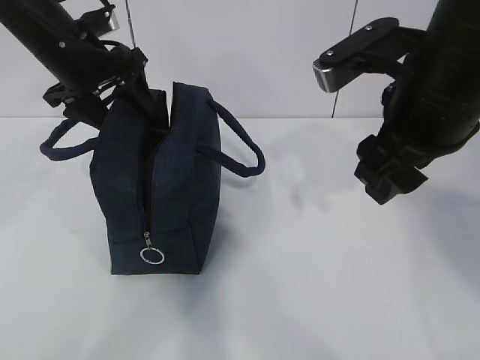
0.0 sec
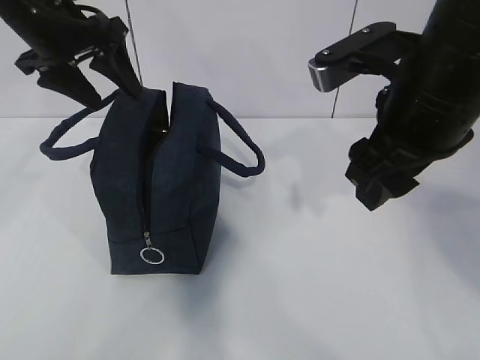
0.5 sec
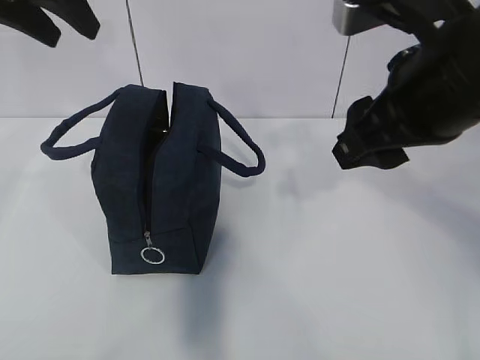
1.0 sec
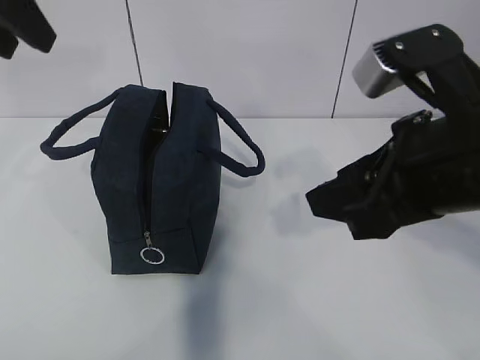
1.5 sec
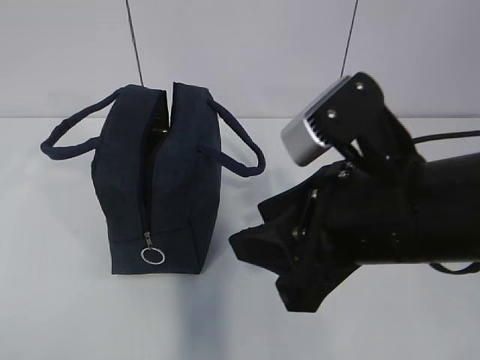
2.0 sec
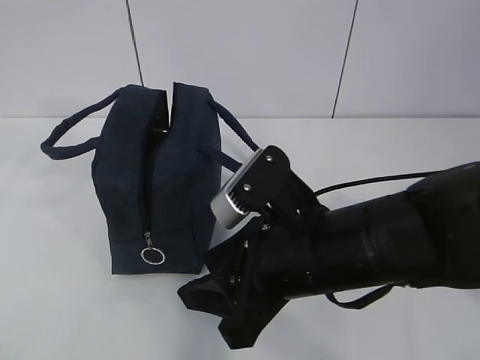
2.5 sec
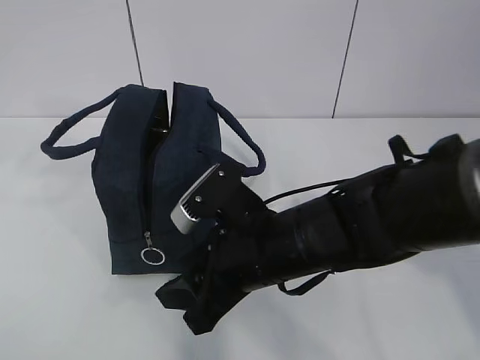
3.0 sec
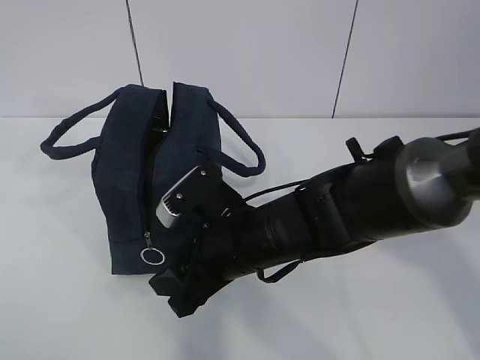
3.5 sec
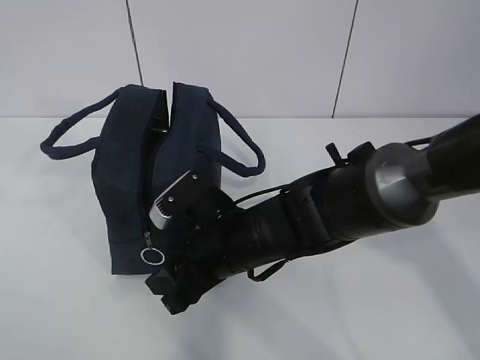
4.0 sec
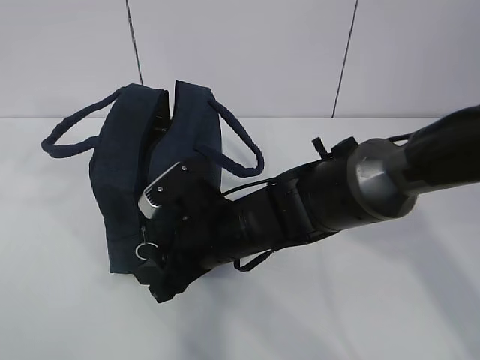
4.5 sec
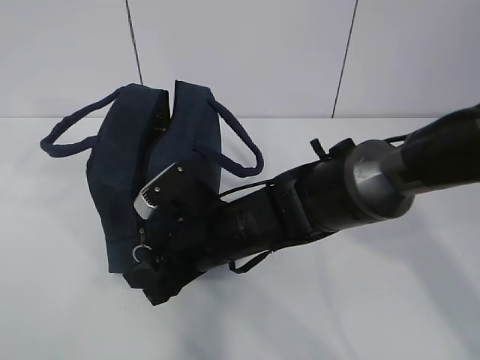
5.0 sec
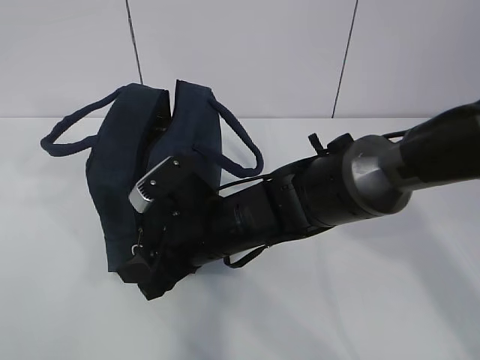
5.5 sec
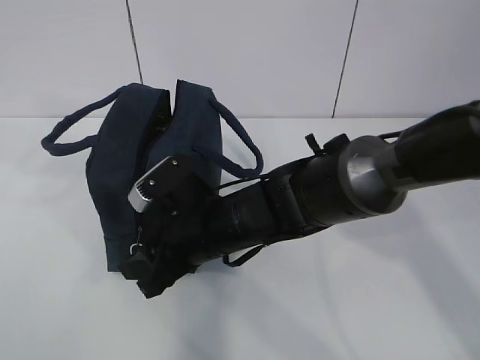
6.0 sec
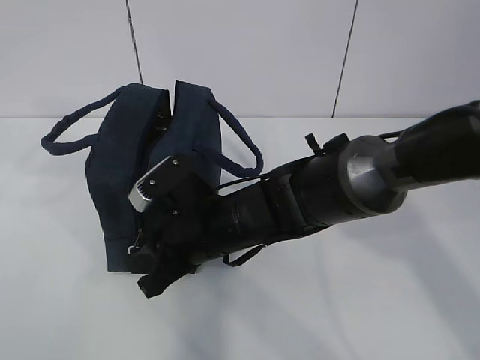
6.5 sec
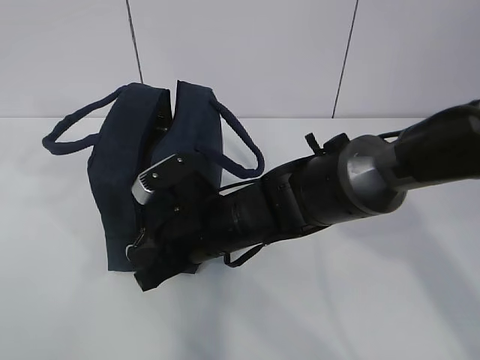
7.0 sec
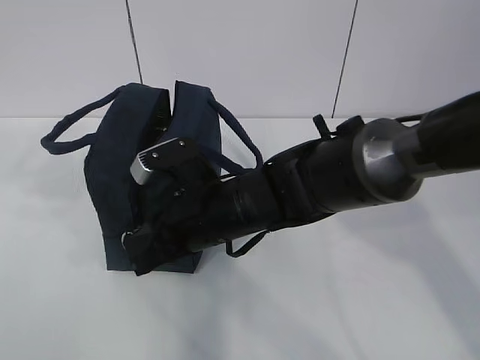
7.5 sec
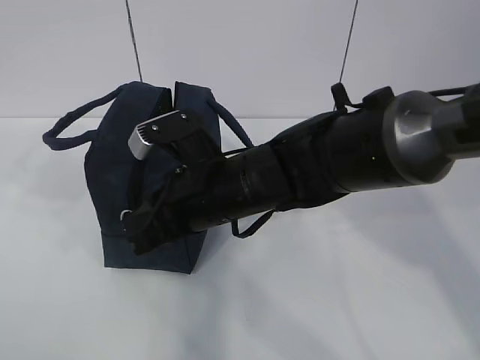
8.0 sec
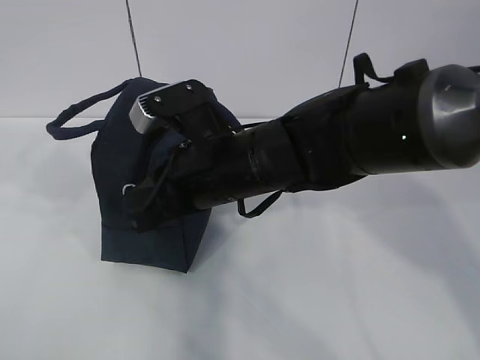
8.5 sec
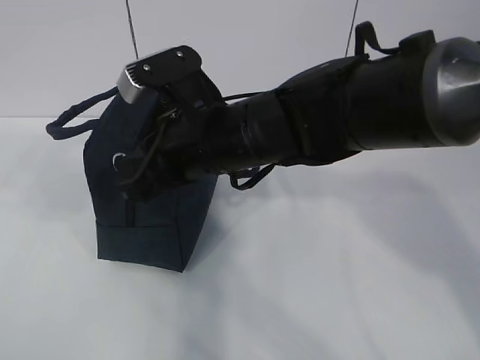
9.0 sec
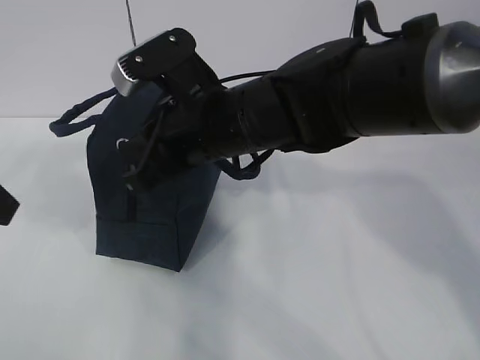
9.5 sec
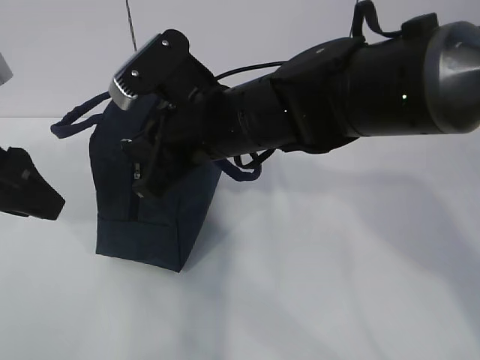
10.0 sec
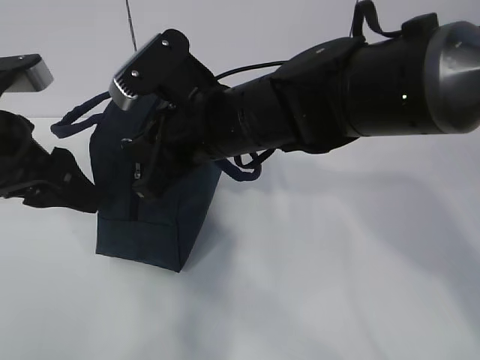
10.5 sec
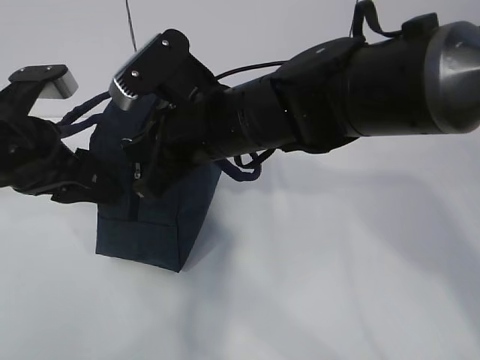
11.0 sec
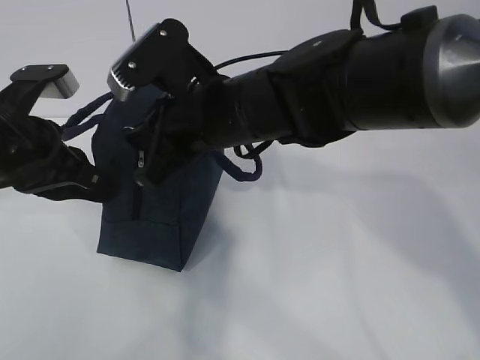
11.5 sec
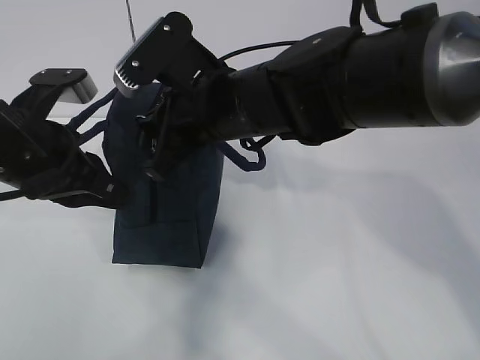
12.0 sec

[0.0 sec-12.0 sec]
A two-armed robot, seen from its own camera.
Step, 0.0 sec to 3.5 sec: Pull the zipper with your right hand.
0.0 sec to 2.0 sec: The left gripper moves backward and upward, some 25 cm; the right gripper shifts about 10 cm backward.
2.0 sec to 4.0 sec: The right gripper moves downward, forward and to the left, about 20 cm.
4.0 sec to 6.0 sec: The grippers move only a little.
6.0 sec to 8.0 sec: The right gripper travels upward by some 5 cm, and closes its fingers.
8.0 sec to 10.0 sec: The right gripper goes roughly 5 cm upward. The left gripper heads downward, covering roughly 10 cm.
10.0 sec to 12.0 sec: The left gripper shifts by roughly 5 cm, and closes its fingers.

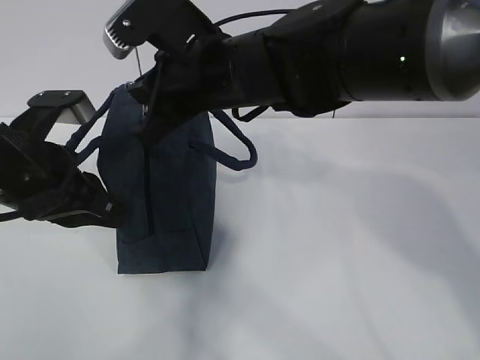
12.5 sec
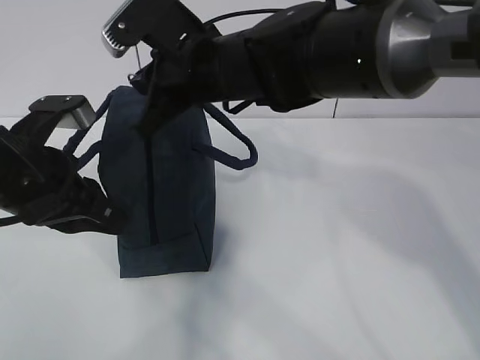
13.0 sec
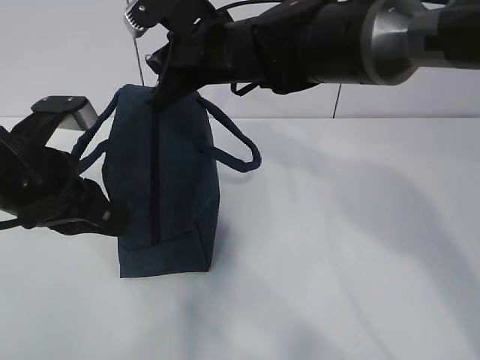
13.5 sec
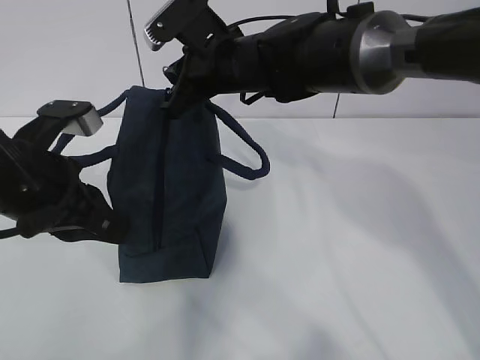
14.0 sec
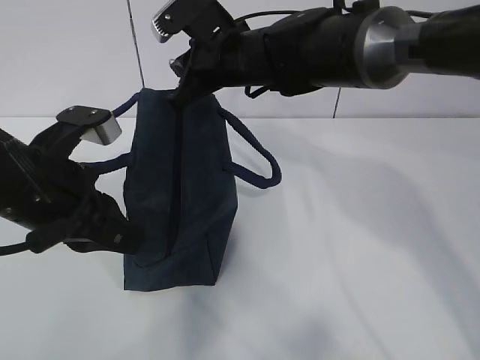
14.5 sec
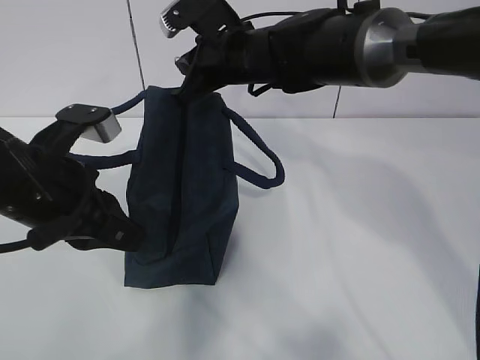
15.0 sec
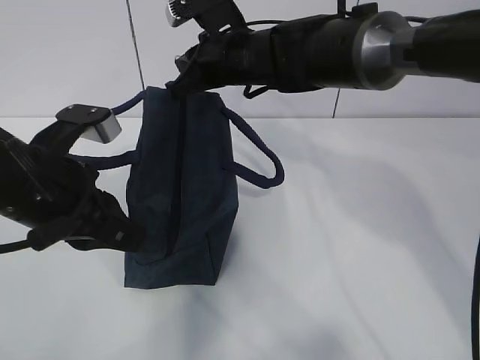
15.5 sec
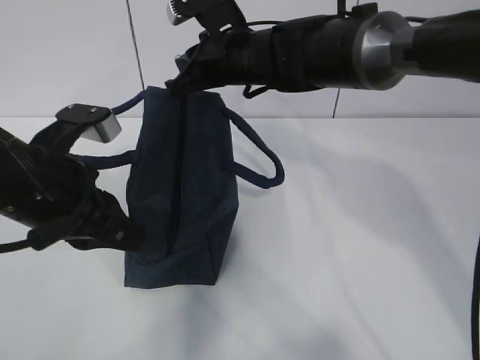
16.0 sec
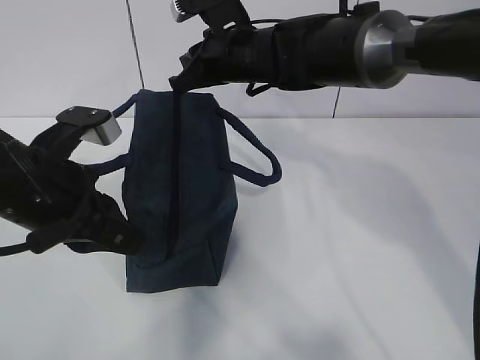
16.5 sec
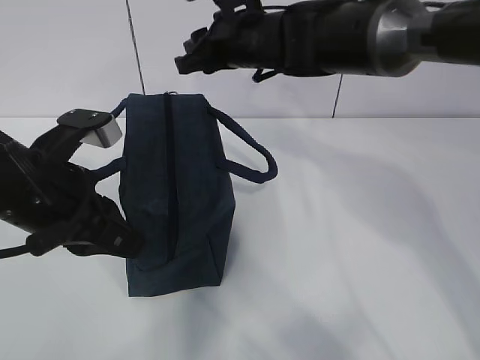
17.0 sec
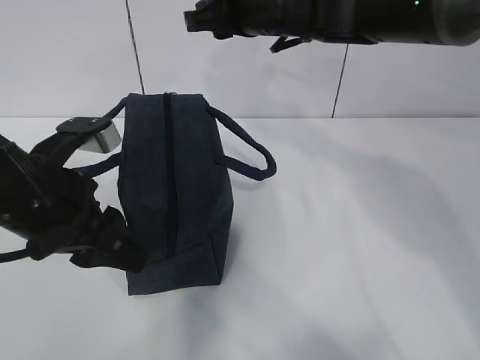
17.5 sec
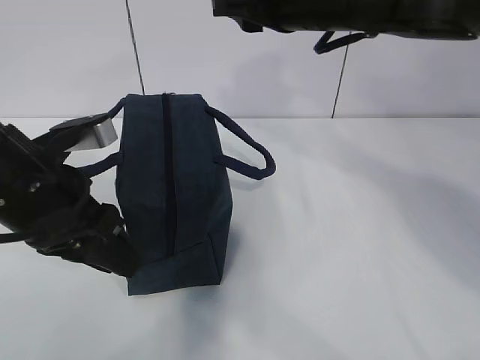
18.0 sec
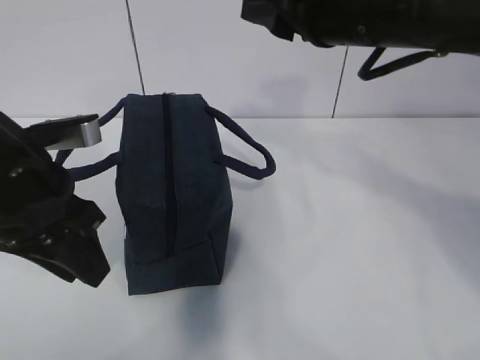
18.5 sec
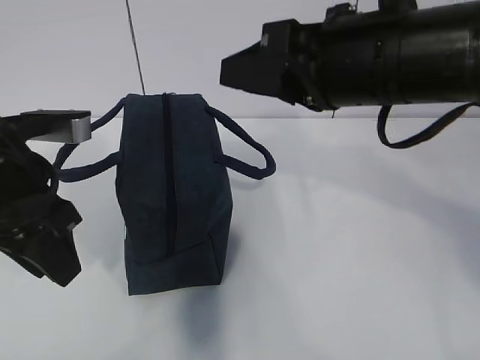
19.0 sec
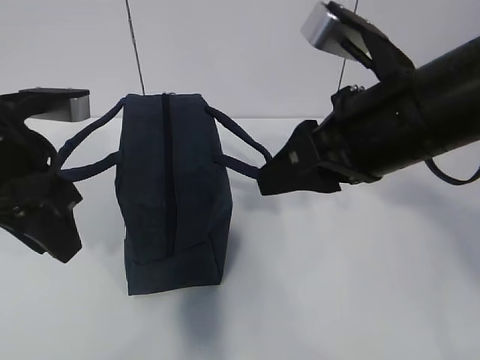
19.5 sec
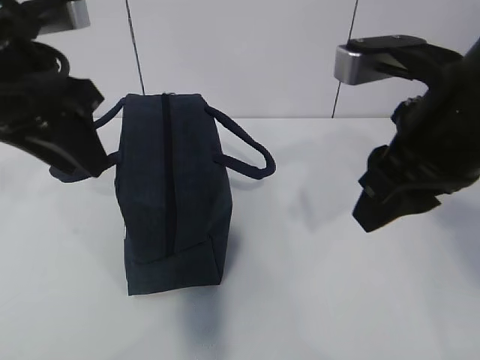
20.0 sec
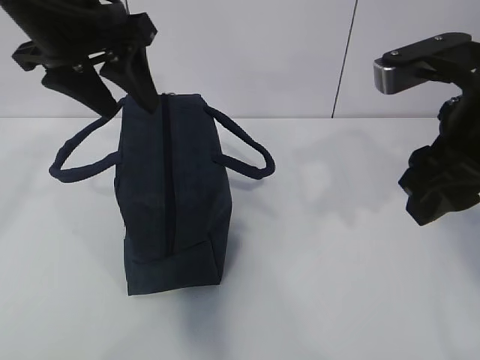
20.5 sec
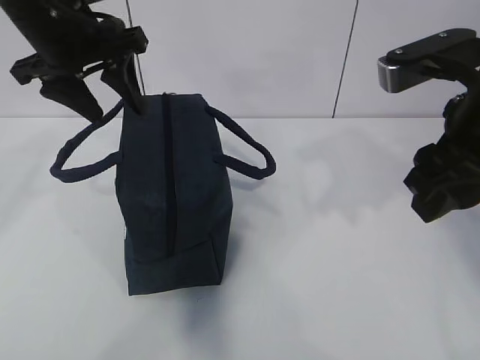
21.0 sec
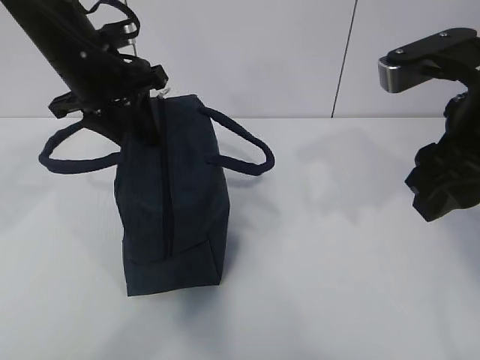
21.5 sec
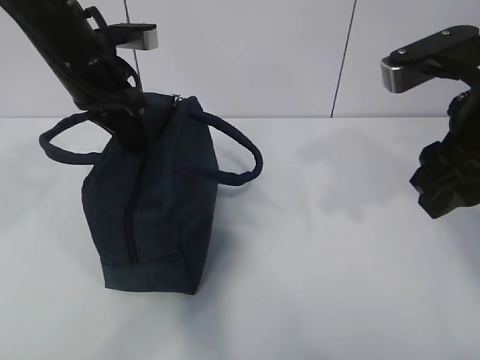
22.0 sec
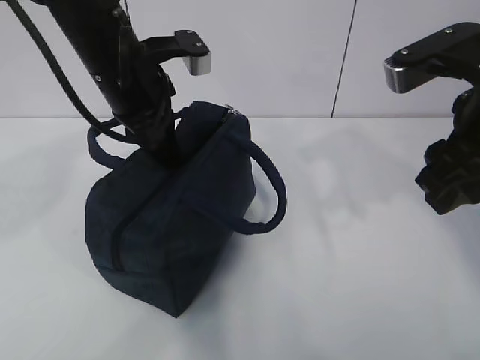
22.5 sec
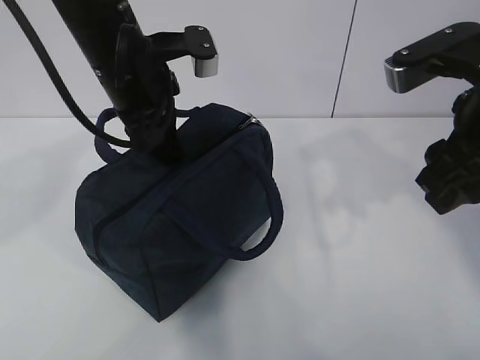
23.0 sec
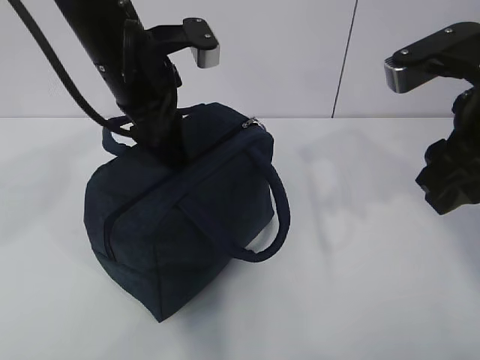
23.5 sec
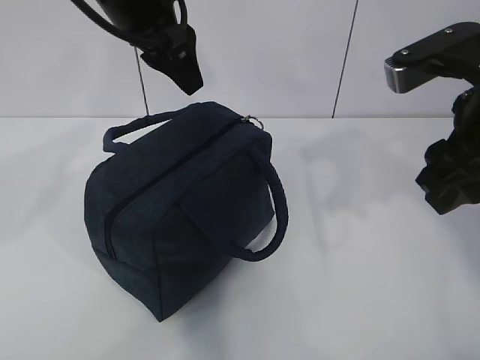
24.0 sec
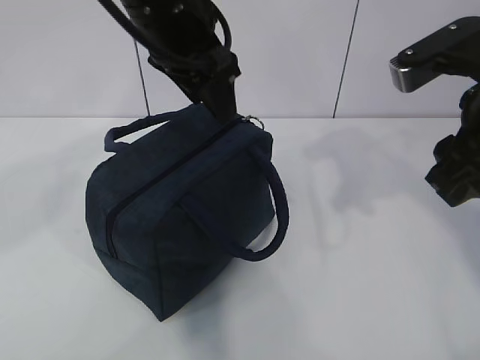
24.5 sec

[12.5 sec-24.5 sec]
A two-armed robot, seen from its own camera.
12.5 sec to 14.5 sec: The right gripper shifts about 10 cm forward.
14.5 sec to 16.5 sec: The grippers stay close to where they were, moving slightly.
16.5 sec to 18.5 sec: The right gripper is displaced backward, upward and to the right by some 20 cm; the left gripper opens up.
18.5 sec to 20.5 sec: The right gripper moves to the right and backward, roughly 10 cm. The left gripper heads upward and forward, covering some 15 cm, and opens.
20.5 sec to 22.5 sec: The left gripper is displaced downward by approximately 10 cm, and closes.
22.5 sec to 24.5 sec: The left gripper shifts approximately 10 cm upward and to the right, and opens up.

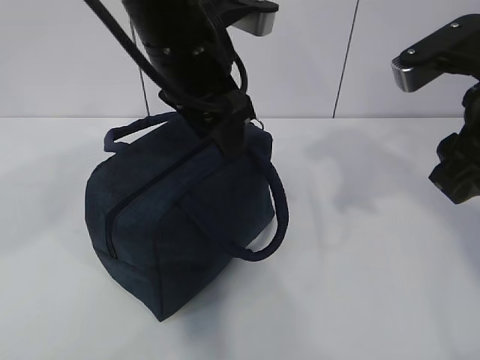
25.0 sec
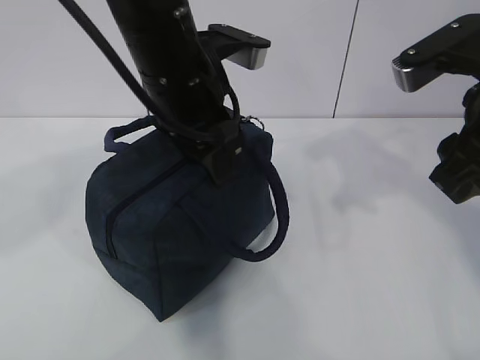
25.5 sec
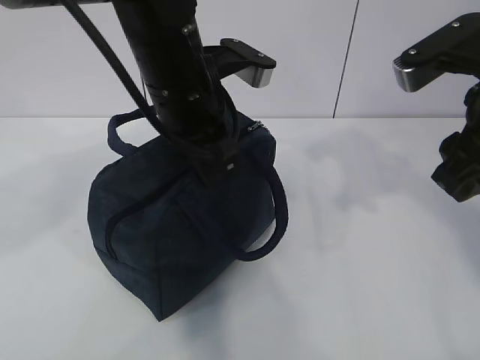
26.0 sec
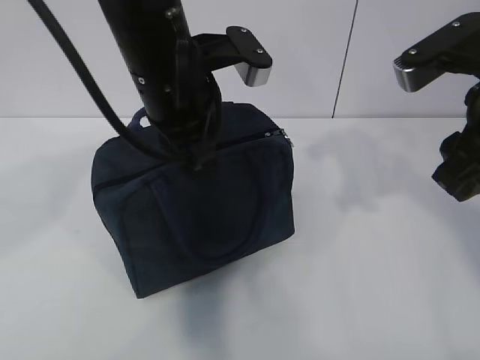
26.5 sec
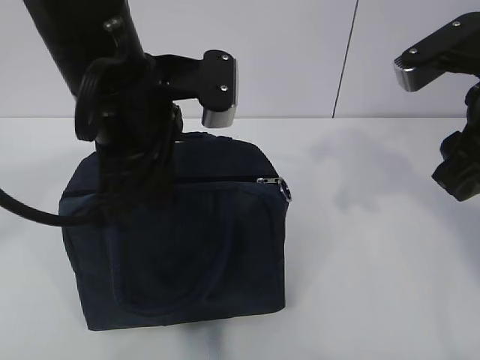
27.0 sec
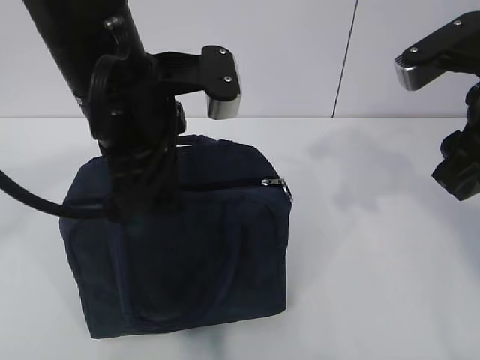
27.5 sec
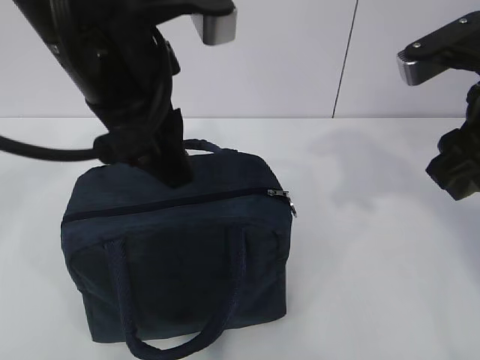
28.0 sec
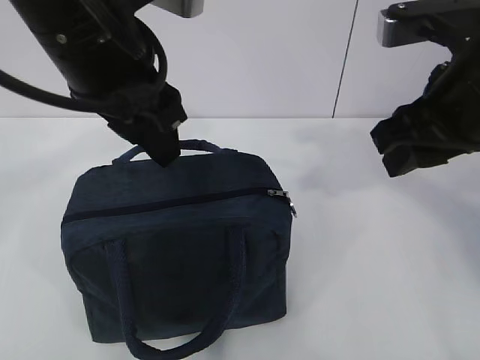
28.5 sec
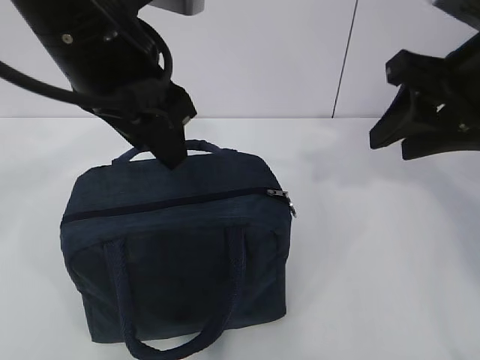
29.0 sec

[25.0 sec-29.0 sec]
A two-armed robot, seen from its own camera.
25.0 sec to 27.0 sec: The left gripper goes approximately 5 cm backward, and closes.
27.0 sec to 29.0 sec: The left gripper opens.
